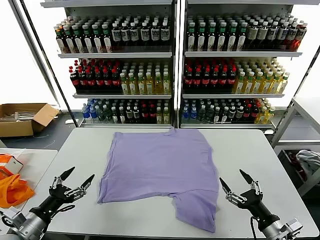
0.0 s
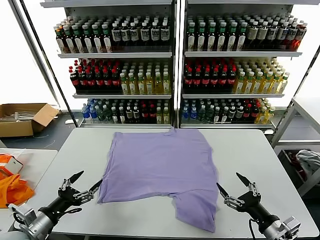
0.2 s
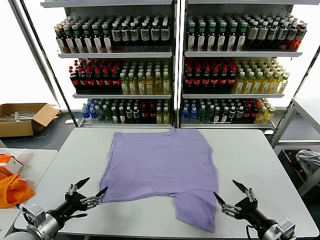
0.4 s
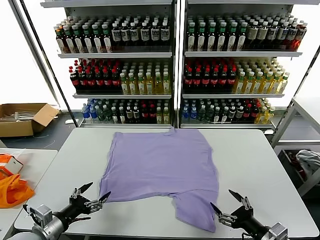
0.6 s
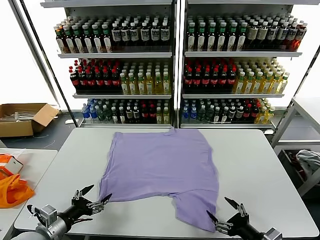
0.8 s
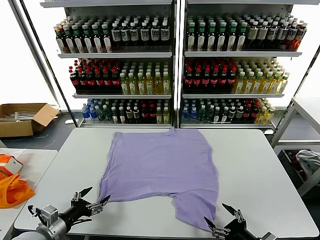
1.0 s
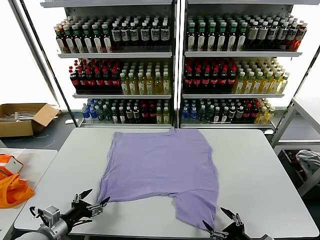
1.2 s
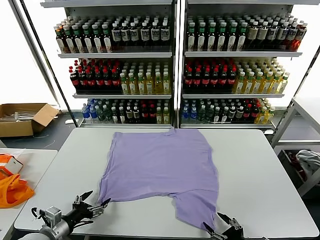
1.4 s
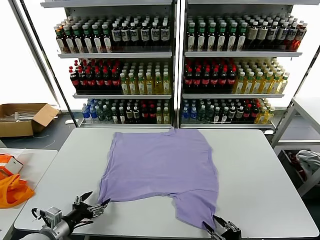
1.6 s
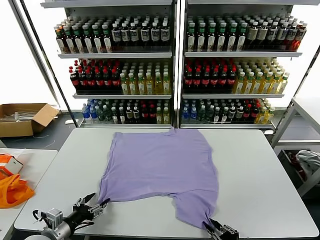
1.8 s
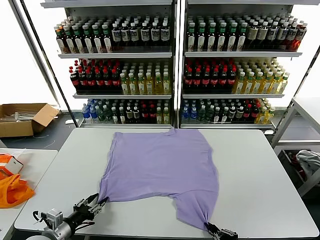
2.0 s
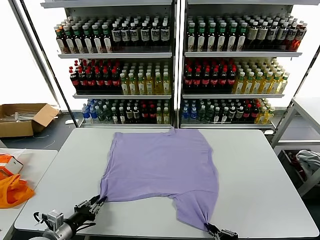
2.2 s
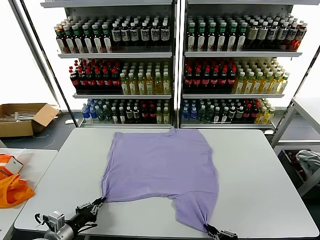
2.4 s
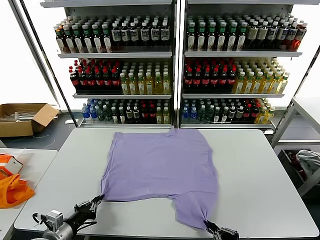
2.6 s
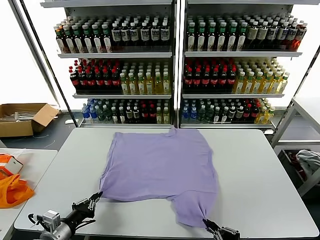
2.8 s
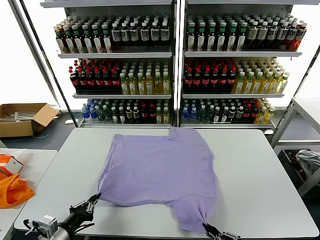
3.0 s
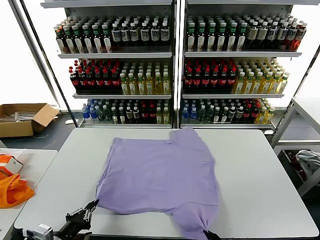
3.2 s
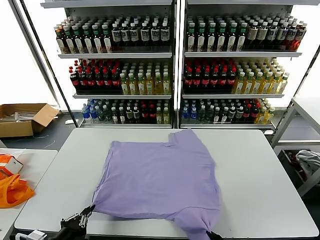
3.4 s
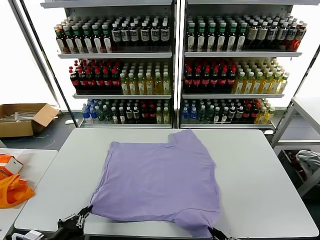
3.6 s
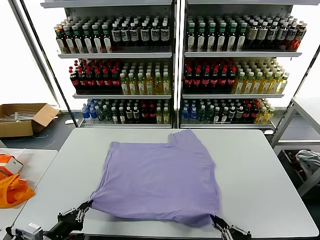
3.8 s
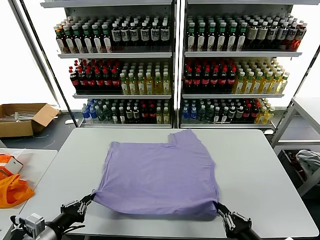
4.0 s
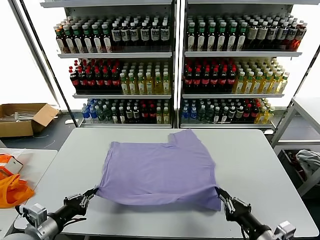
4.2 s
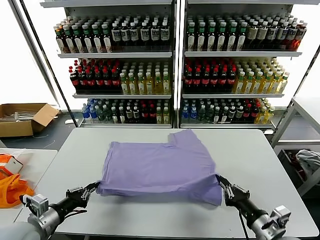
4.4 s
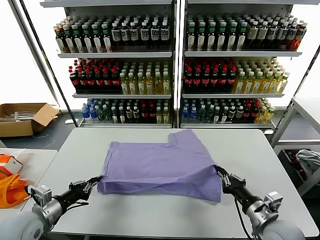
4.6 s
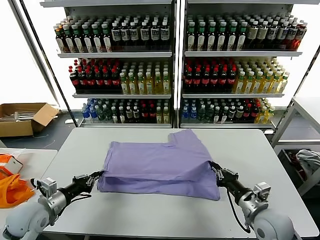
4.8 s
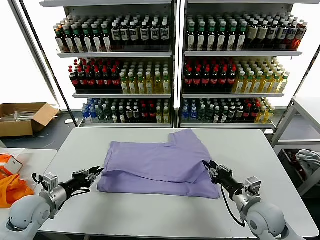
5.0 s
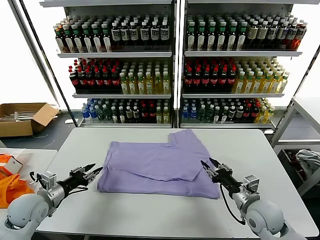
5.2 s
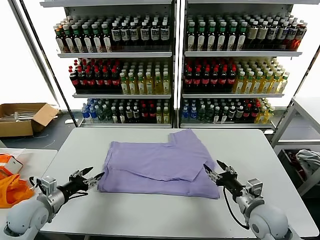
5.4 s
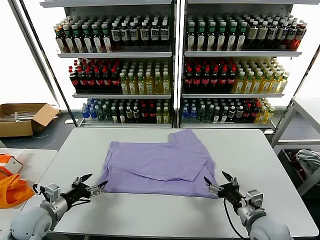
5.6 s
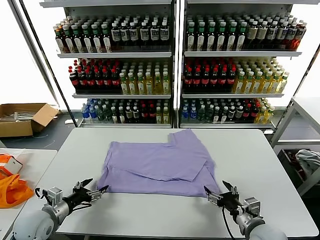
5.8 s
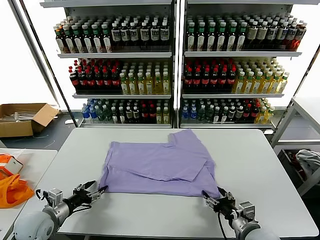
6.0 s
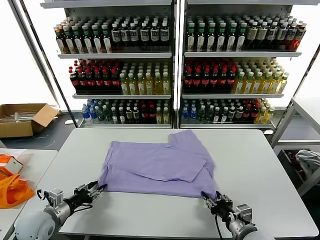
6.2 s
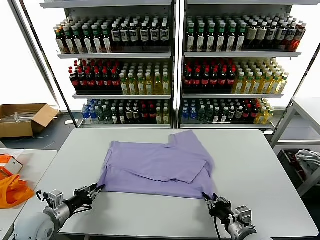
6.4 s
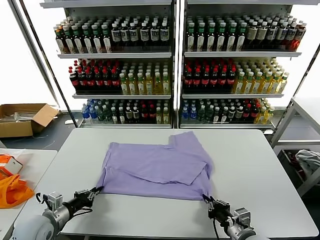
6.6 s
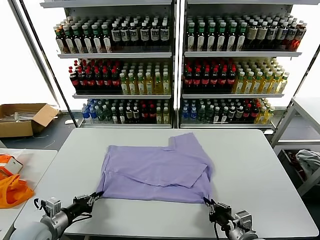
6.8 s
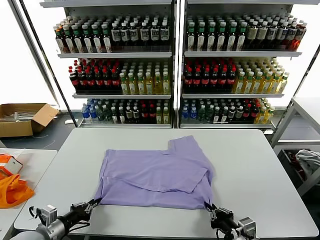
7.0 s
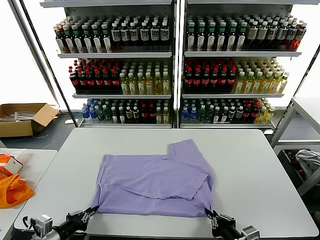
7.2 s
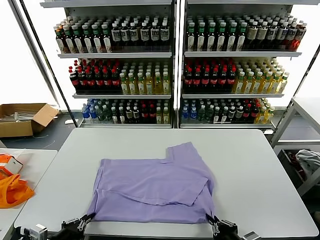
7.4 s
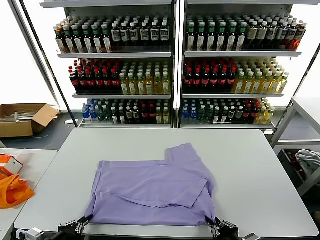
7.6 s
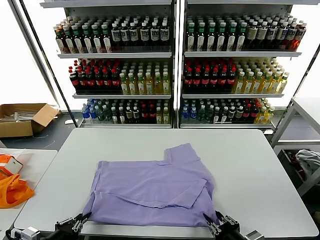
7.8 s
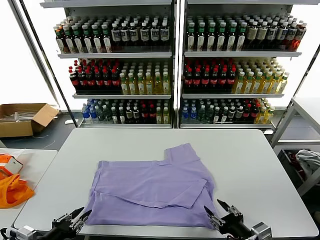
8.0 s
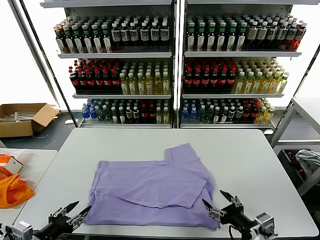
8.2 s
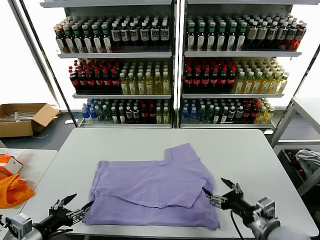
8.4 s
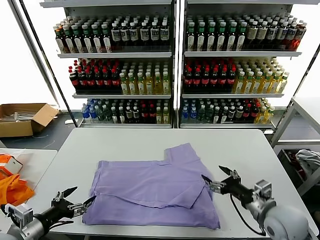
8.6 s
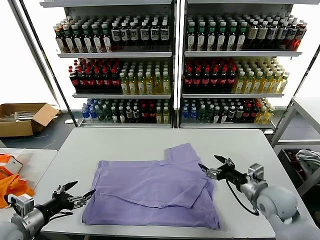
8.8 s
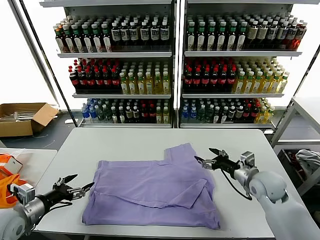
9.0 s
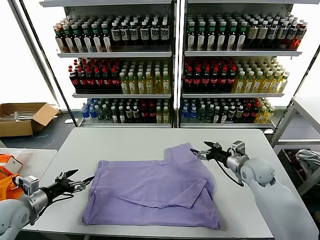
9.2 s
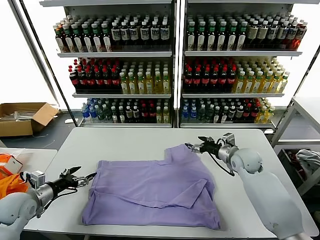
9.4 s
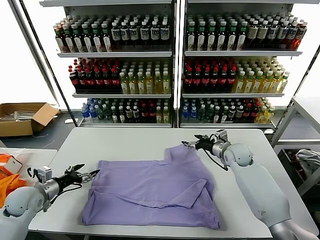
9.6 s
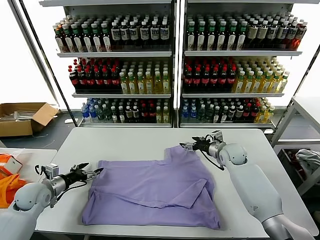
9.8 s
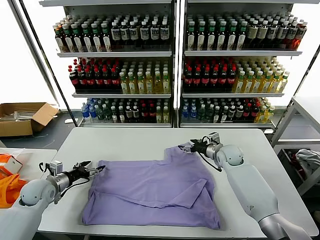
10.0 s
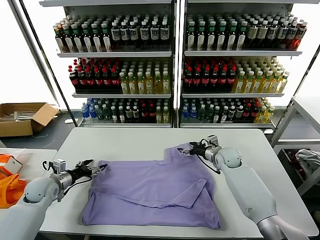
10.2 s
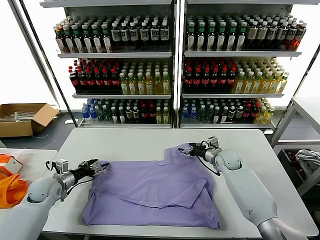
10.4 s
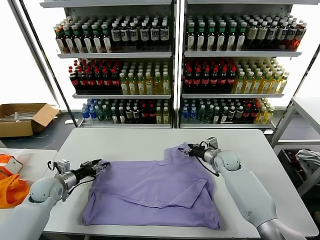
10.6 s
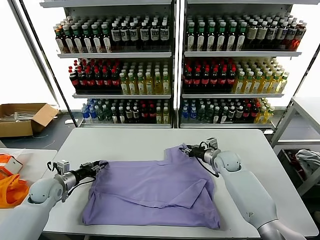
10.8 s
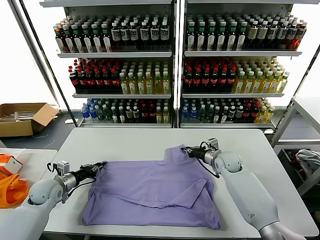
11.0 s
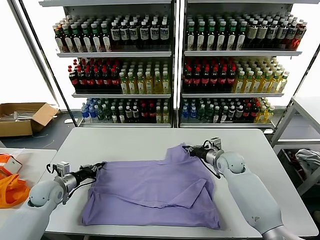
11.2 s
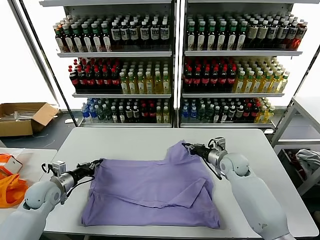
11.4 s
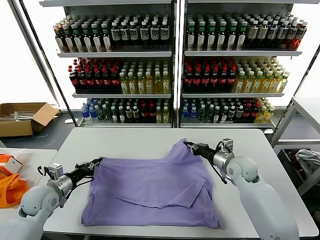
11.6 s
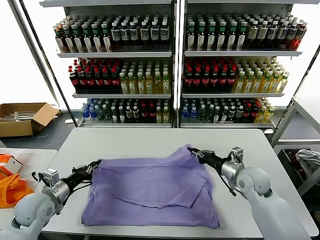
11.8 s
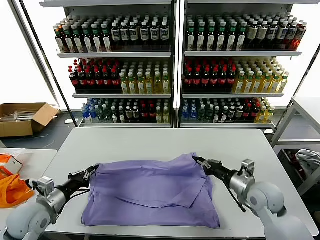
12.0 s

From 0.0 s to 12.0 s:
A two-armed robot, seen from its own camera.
Task of the whole recording: fold and organize the clothes.
Step, from 0.0 s to 2.4 s: use both grippers simultaneously to clamp the lower edge of the clothing fabric.
Step, from 2.6 s to 5.0 s: use both grippers to drag the lower edge of the fabric forward and fold it over the upper edge.
Step, from 5.2 s to 8.0 s: Drag the clothes downward with both gripper.
Step, from 8.2 s to 11.2 s: use both grippers simultaneously to clamp the upper edge of the clothing fabric.
From 1.6 s to 3.0 s: The right gripper goes about 5 cm upward and backward, and closes. Meanwhile the left gripper ends up about 5 cm from where it was, and closes its fingers.
From 3.0 s to 4.4 s: The right gripper moves forward, about 15 cm, while the left gripper heads forward, covering approximately 5 cm.
From 4.4 s to 6.0 s: Both grippers travel together downward, roughly 5 cm. The left gripper opens its fingers, while the right gripper goes forward and returns, approximately 10 cm each way, and opens.
From 6.0 s to 7.6 s: The two grippers go some 10 cm backward. The left gripper closes, while the right gripper closes up.
From 7.6 s to 9.0 s: The right gripper moves forward, roughly 30 cm, and opens. The left gripper goes approximately 15 cm forward and to the left, and opens up.
From 9.0 s to 10.4 s: The left gripper moves forward and downward, some 15 cm; the right gripper moves forward, downward and to the left, approximately 15 cm.
From 10.4 s to 12.0 s: The left gripper moves backward and upward, some 15 cm, and closes its fingers, while the right gripper travels backward by roughly 20 cm, and closes up.

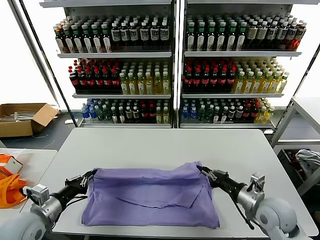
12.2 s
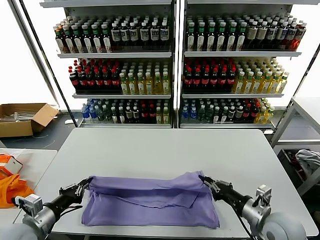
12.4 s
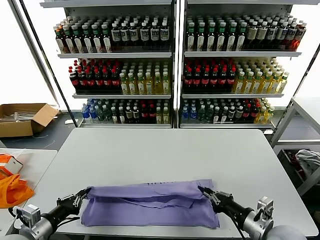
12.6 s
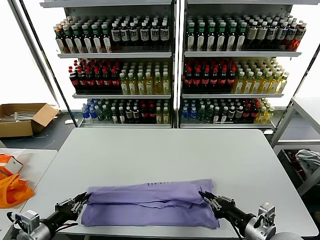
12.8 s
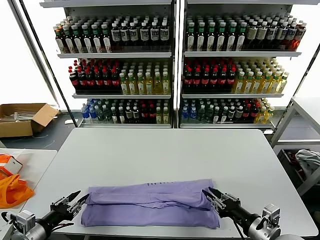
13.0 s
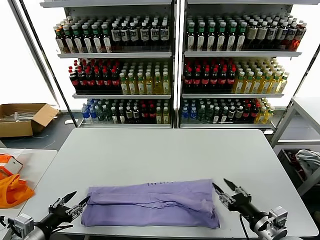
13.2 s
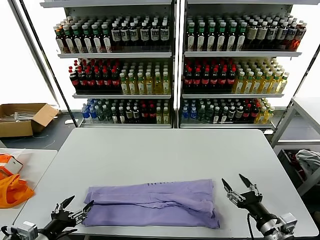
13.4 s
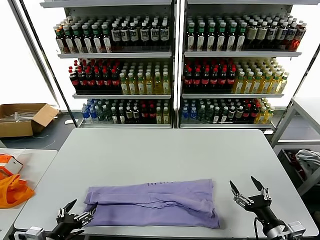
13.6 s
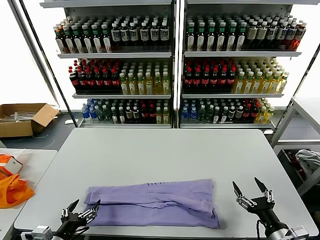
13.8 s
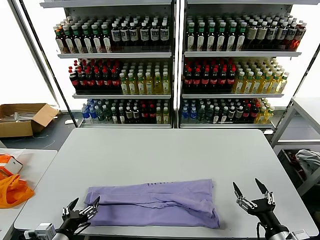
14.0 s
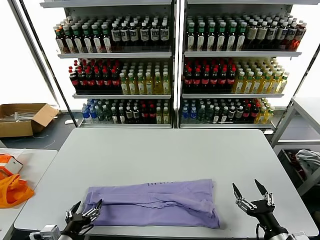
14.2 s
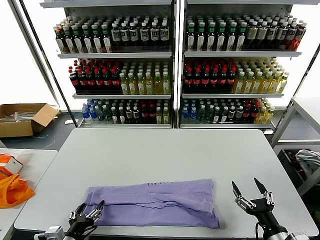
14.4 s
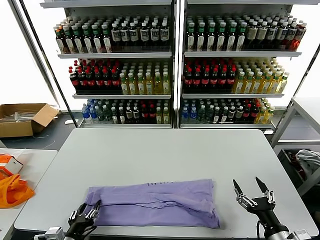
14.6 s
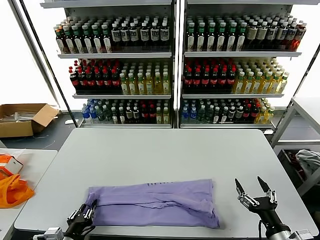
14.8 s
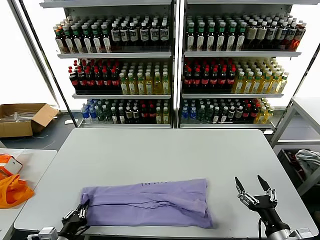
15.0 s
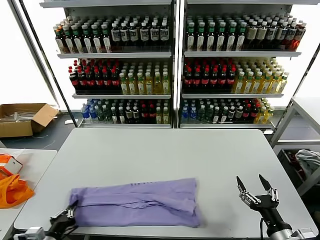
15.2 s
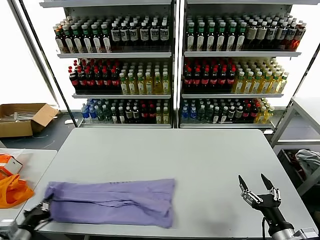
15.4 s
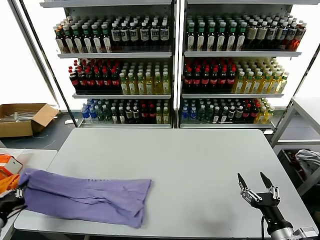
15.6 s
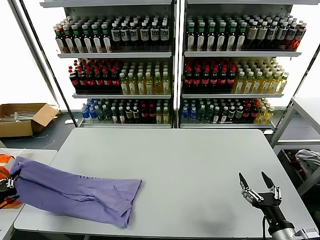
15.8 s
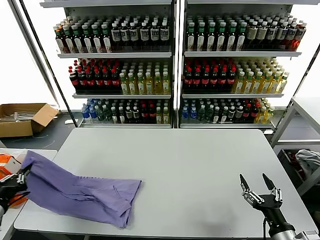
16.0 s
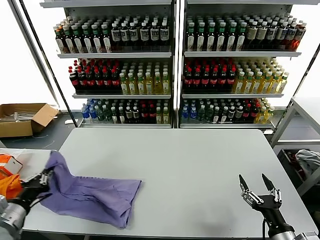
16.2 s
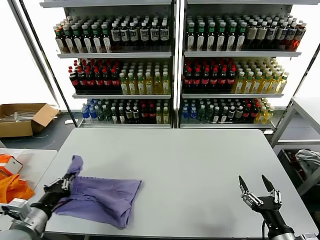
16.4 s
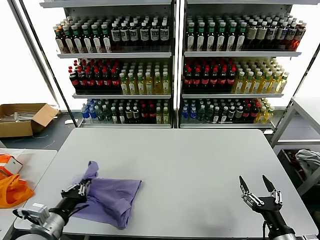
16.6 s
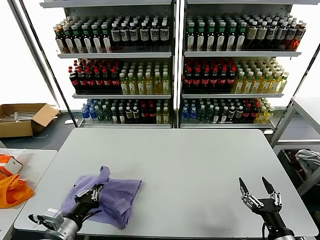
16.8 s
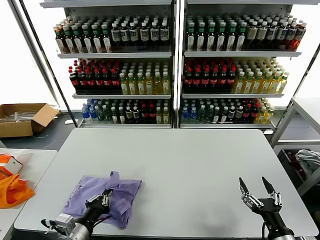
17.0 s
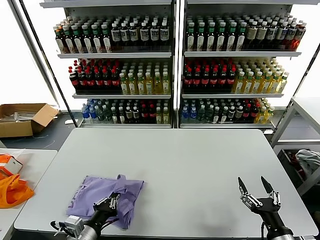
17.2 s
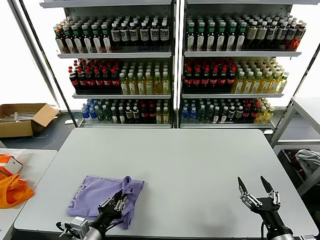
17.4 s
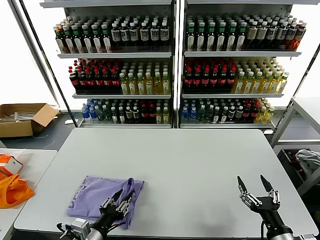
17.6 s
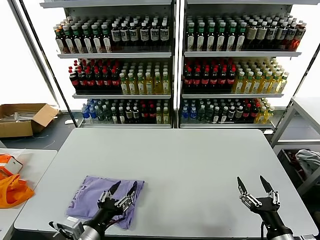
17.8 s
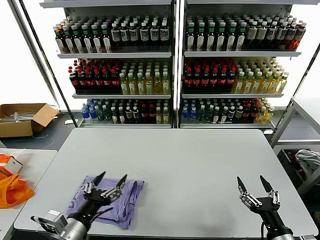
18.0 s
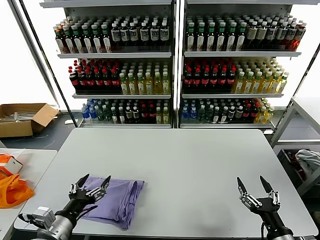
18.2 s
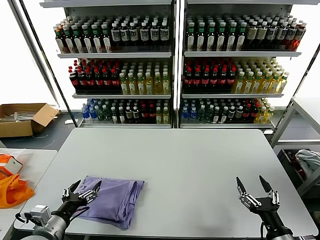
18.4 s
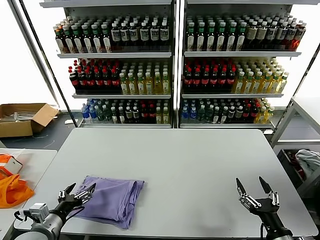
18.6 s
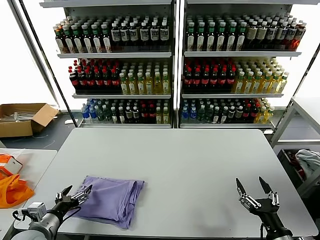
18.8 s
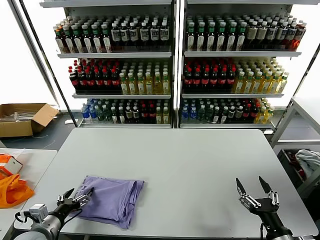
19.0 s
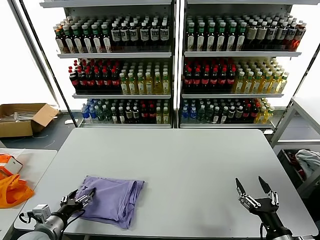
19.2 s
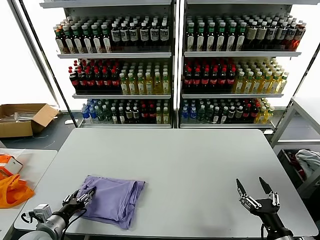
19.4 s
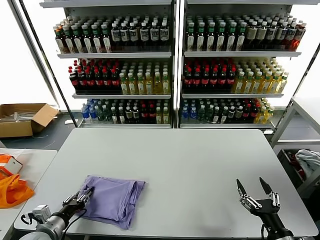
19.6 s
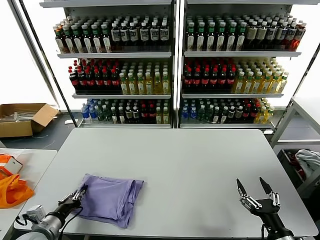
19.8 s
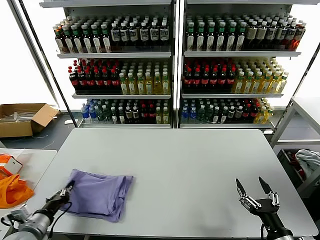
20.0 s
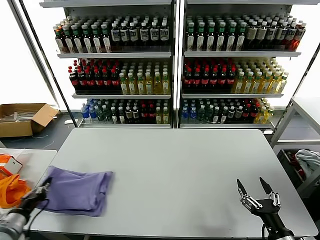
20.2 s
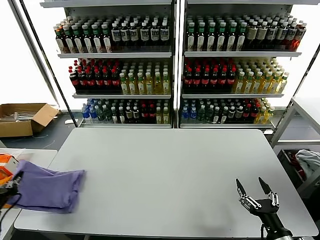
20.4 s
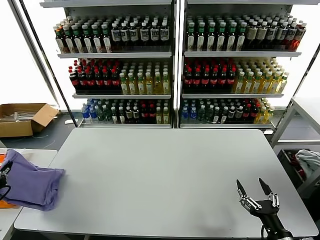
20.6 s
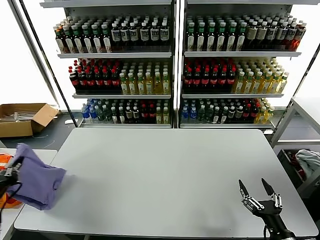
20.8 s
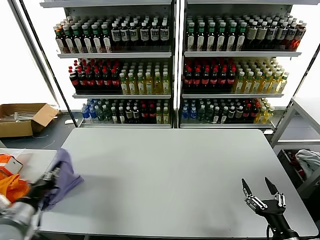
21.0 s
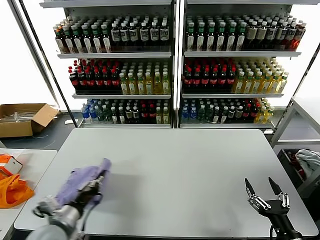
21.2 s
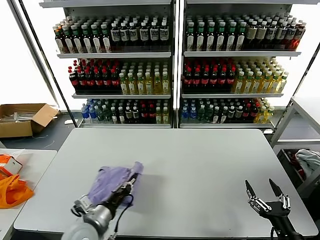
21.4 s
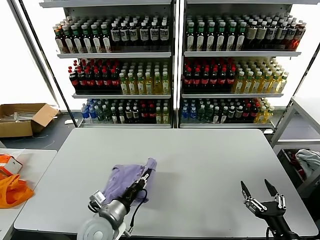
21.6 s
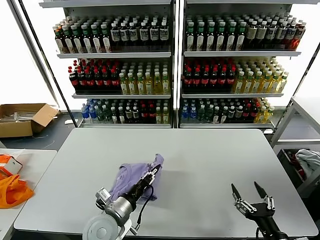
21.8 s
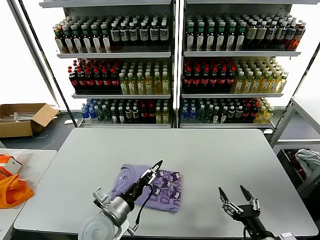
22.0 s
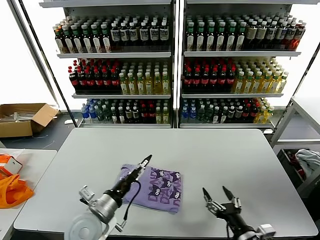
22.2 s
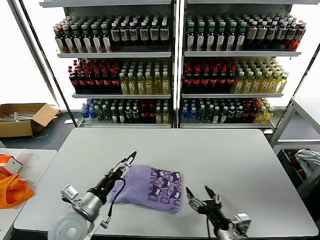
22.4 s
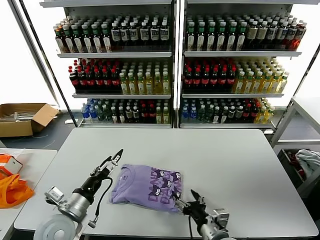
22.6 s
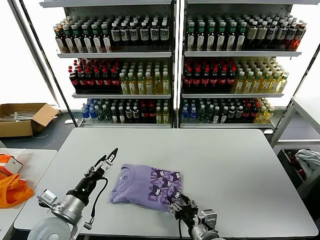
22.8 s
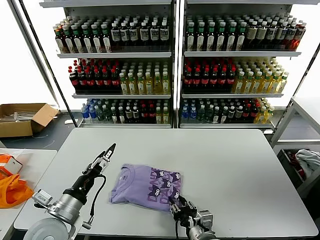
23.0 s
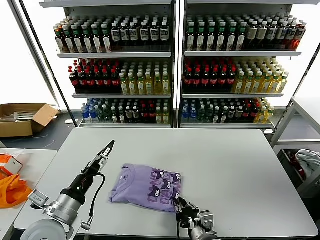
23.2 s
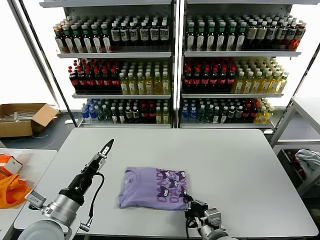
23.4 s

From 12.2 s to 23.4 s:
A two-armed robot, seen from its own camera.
Task of the whole recording: fold and organize the clothes.
Step, from 13.2 s to 14.8 s: use the left gripper to clamp the left edge of the fabric.
Step, from 15.2 s to 17.6 s: use the left gripper to drag the left edge of the fabric to the left and folds it over the right edge.
Step, from 17.8 s to 21.8 s: Flip the folded clothes over with left gripper.
From 12.2 s to 13.8 s: The left gripper is displaced backward by approximately 10 cm, and opens up; the right gripper heads backward and downward, covering roughly 15 cm, and opens its fingers.
From 13.8 s to 15.4 s: The left gripper shifts approximately 10 cm to the left, and closes its fingers.
From 15.4 s to 17.0 s: The left gripper heads to the right, covering approximately 15 cm.
From 17.0 s to 18.6 s: The left gripper travels to the left by approximately 10 cm, and opens.
From 18.6 s to 20.2 s: The left gripper heads to the left, covering roughly 10 cm, and closes.
From 20.2 s to 21.8 s: The left gripper shifts some 30 cm to the right.
From 21.8 s to 23.4 s: The left gripper is displaced to the left and upward by some 15 cm, and opens its fingers. Meanwhile the right gripper travels to the left and forward by approximately 15 cm, and closes up.
